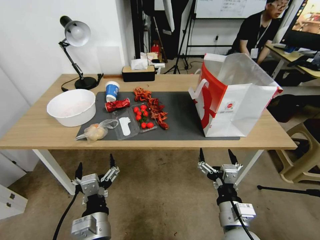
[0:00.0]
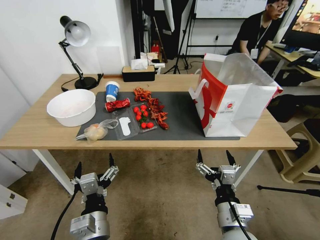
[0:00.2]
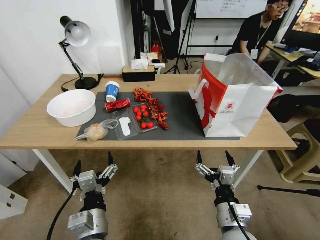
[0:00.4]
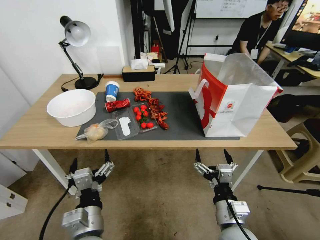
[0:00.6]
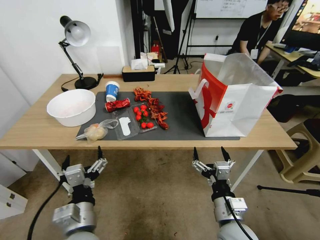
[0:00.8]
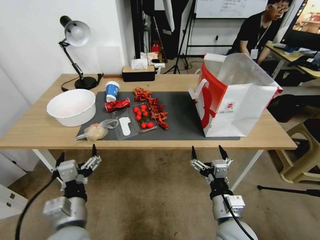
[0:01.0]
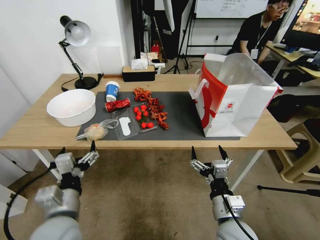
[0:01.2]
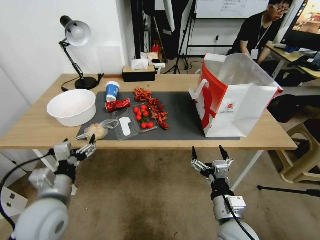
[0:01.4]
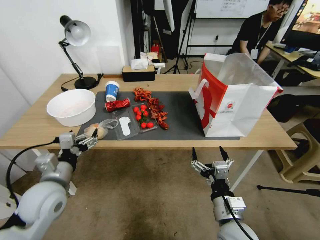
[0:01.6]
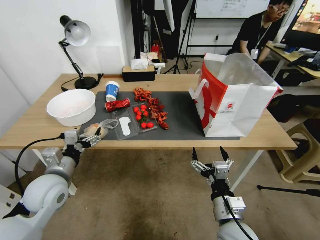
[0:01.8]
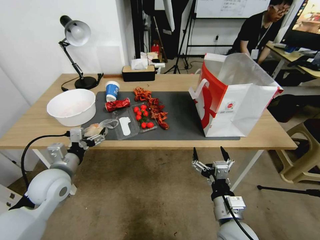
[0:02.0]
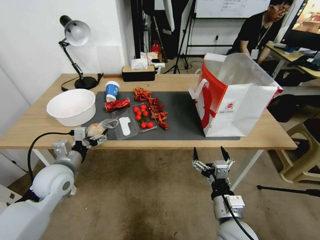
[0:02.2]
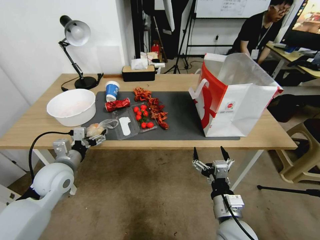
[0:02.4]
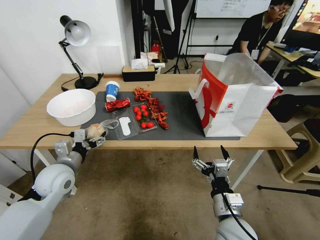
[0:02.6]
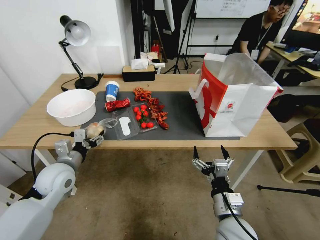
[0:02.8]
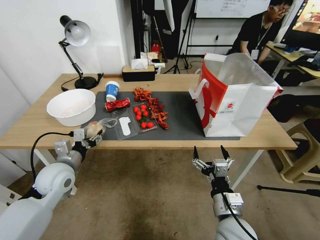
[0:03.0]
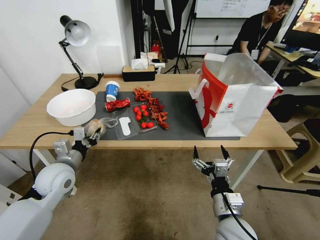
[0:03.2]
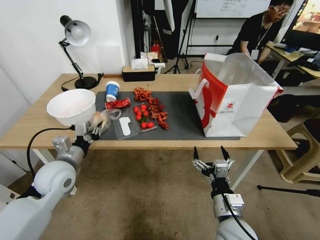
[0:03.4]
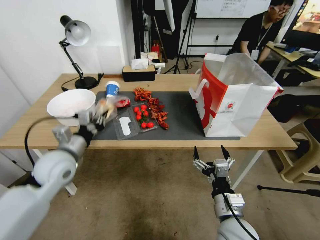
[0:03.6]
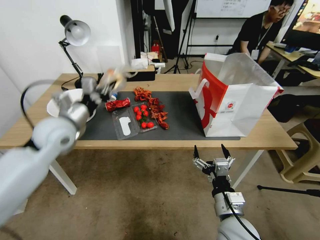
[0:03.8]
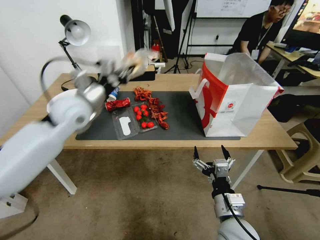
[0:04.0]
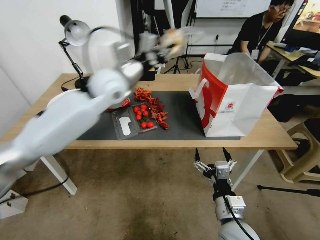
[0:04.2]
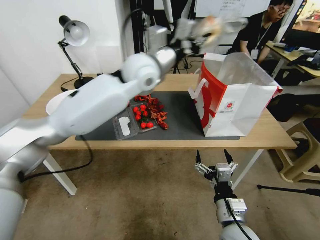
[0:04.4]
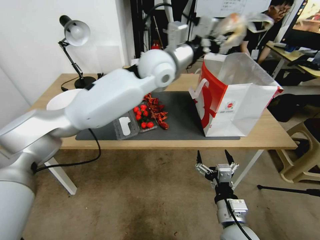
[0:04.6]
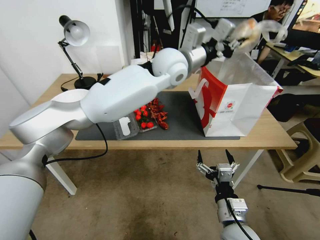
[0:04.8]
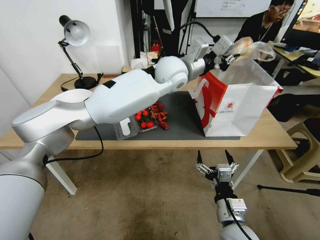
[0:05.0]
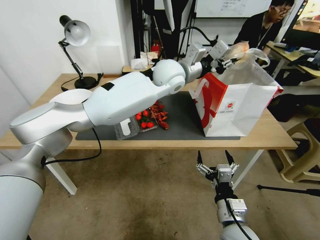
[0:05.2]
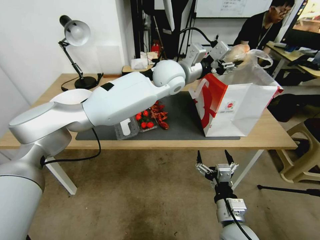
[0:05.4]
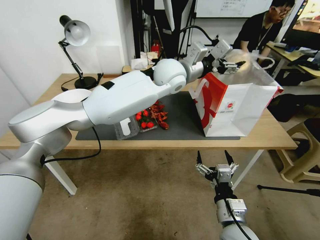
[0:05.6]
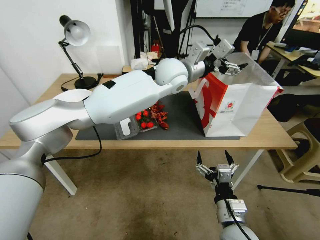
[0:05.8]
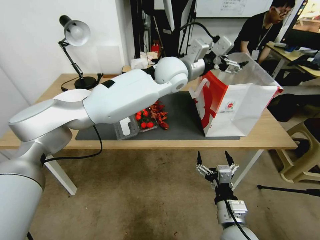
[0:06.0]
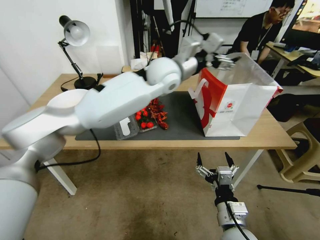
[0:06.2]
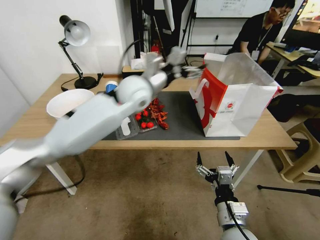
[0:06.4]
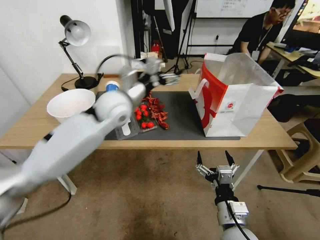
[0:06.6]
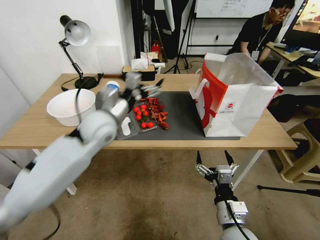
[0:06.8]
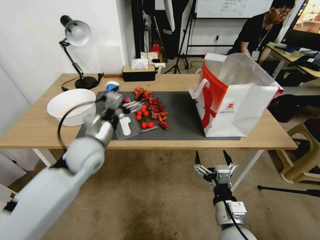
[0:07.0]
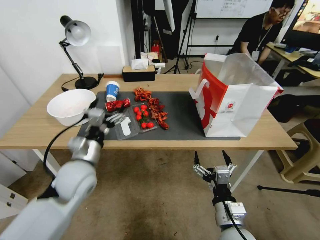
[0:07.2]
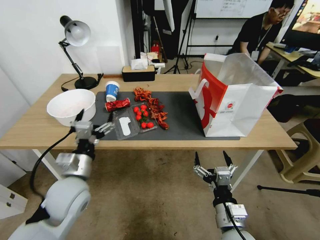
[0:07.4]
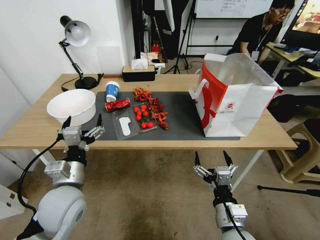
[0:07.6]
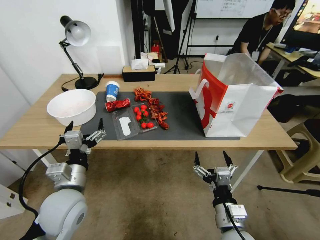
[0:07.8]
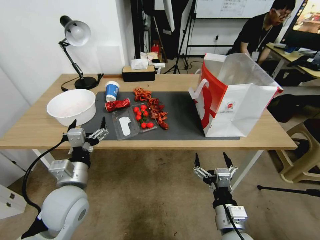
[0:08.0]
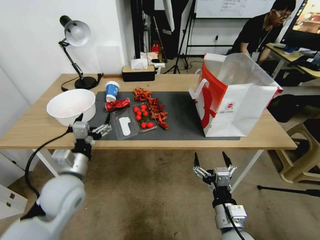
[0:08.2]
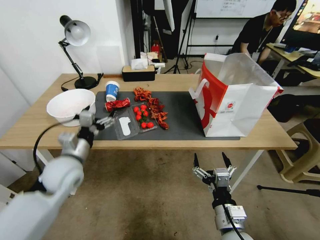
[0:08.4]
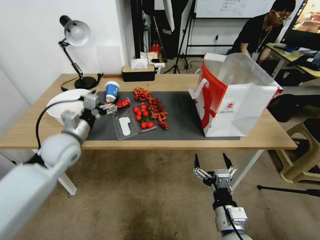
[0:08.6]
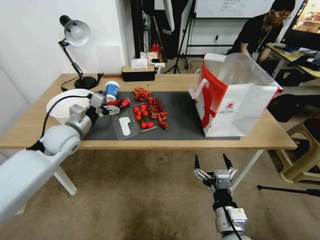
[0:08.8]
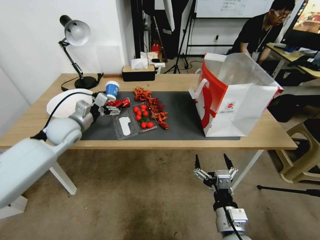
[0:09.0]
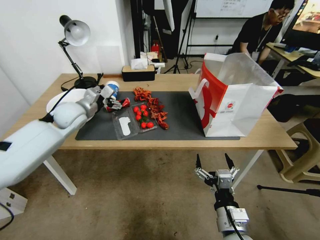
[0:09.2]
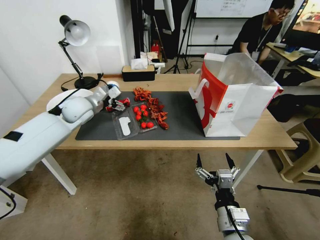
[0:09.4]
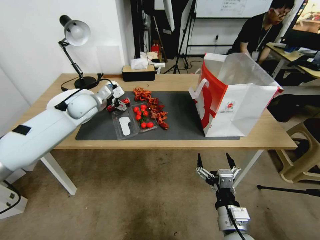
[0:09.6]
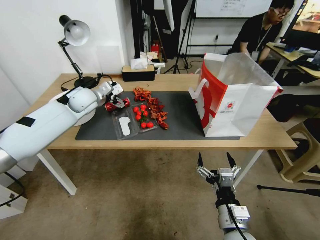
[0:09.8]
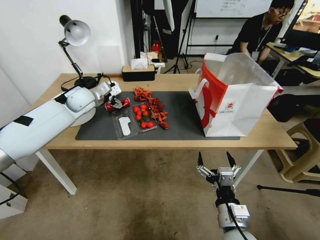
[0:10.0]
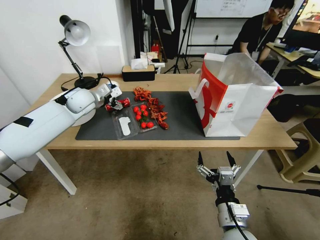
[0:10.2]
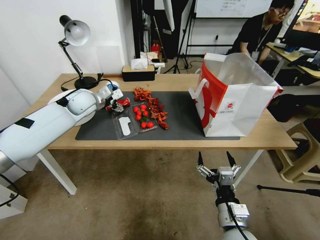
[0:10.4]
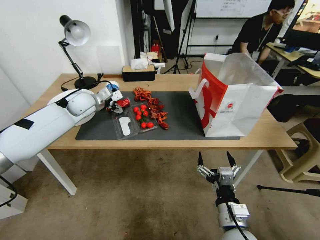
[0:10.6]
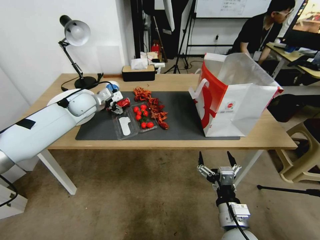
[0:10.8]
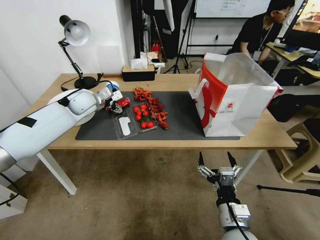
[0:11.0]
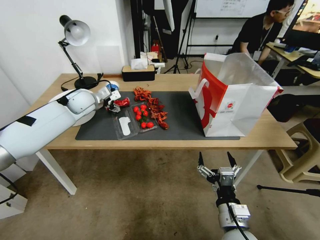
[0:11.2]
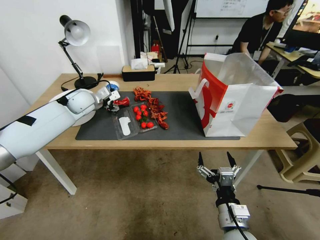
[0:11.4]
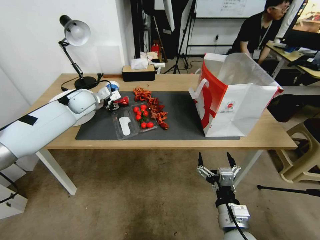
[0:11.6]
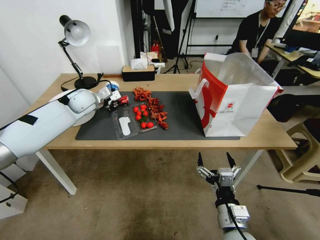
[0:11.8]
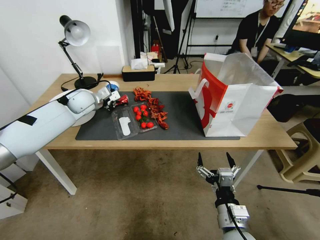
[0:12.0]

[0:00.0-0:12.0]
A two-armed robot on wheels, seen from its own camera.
0:00.0 to 0:01.6: The left gripper goes roughly 20 cm to the left and forward.
0:01.6 to 0:03.0: The left gripper travels forward by roughly 5 cm, and closes its fingers.
0:03.0 to 0:04.4: The left gripper moves upward, to the right and forward, approximately 35 cm, and closes.
0:04.4 to 0:06.0: The left gripper shifts roughly 15 cm to the right, and opens.
0:06.0 to 0:07.6: The left gripper is displaced backward, to the left and downward by roughly 40 cm.
0:07.6 to 0:09.0: The left gripper goes some 20 cm forward.
0:09.0 to 0:10.4: The left gripper is displaced forward by some 10 cm.
0:10.4 to 0:12.0: The left gripper closes up.

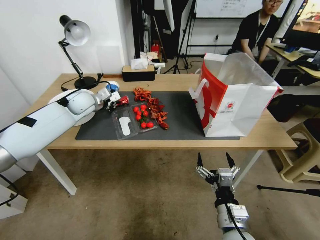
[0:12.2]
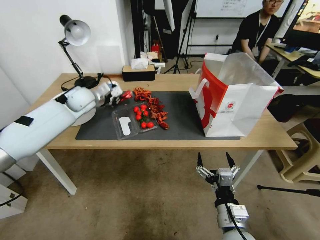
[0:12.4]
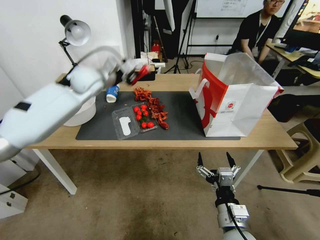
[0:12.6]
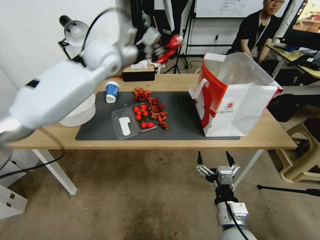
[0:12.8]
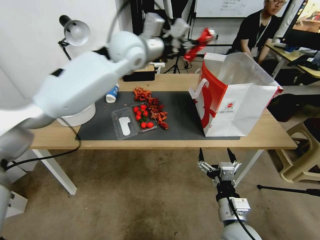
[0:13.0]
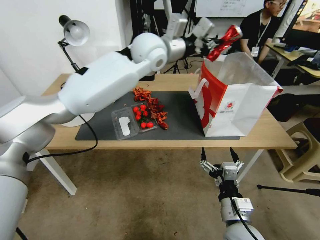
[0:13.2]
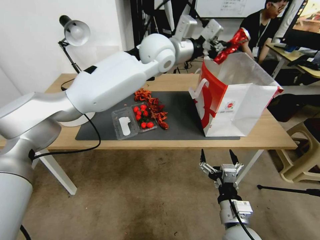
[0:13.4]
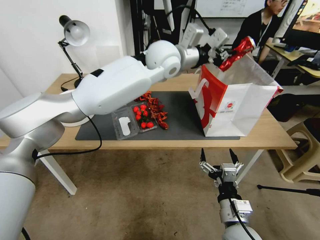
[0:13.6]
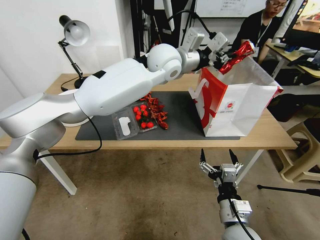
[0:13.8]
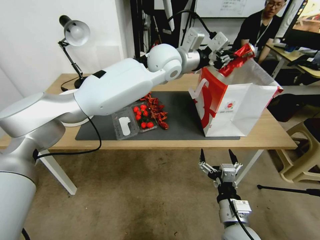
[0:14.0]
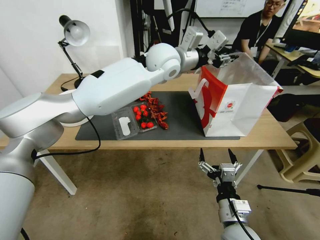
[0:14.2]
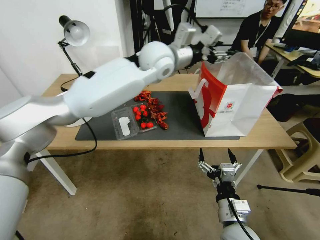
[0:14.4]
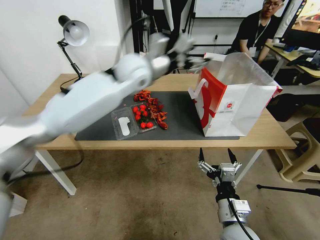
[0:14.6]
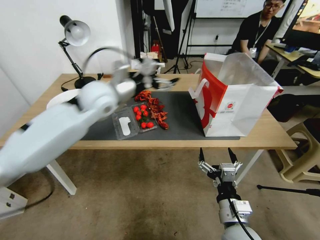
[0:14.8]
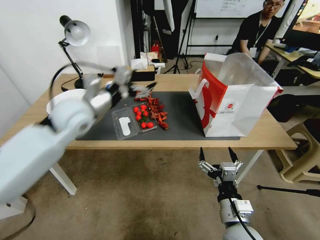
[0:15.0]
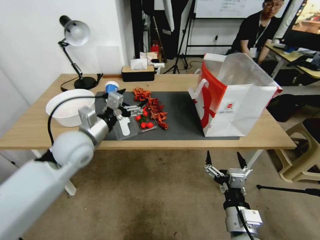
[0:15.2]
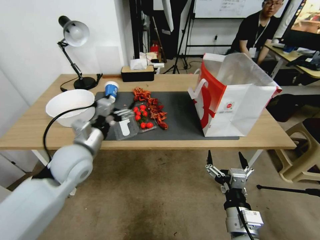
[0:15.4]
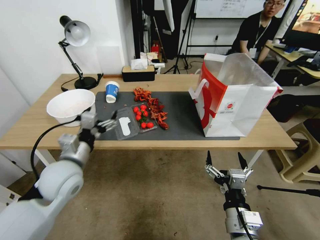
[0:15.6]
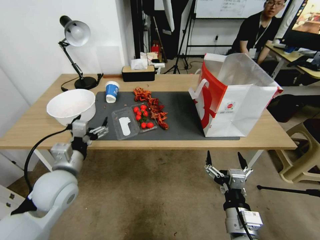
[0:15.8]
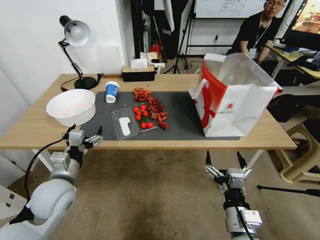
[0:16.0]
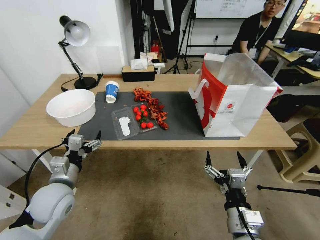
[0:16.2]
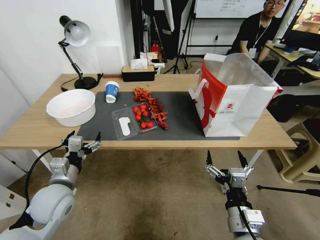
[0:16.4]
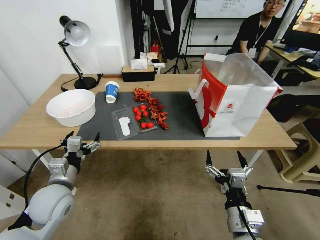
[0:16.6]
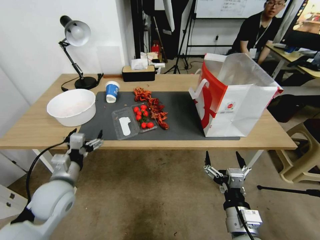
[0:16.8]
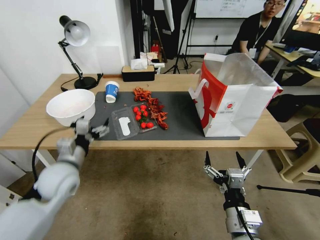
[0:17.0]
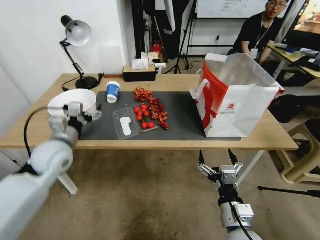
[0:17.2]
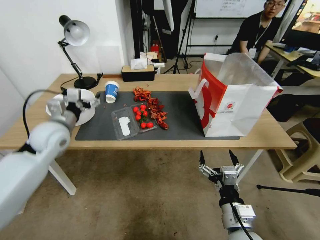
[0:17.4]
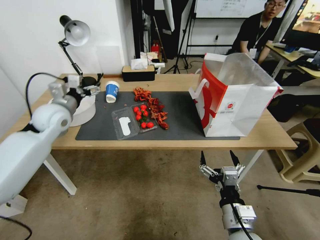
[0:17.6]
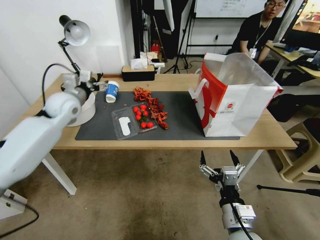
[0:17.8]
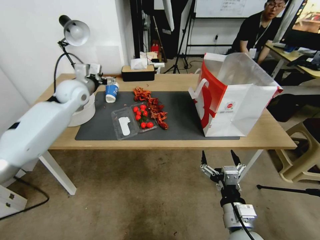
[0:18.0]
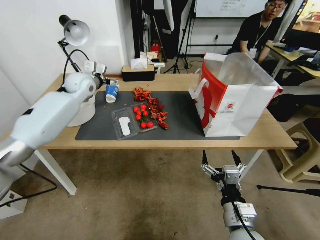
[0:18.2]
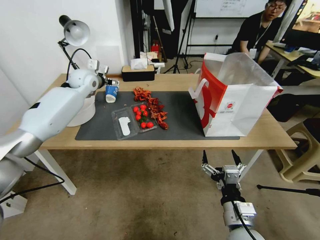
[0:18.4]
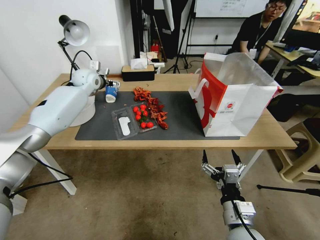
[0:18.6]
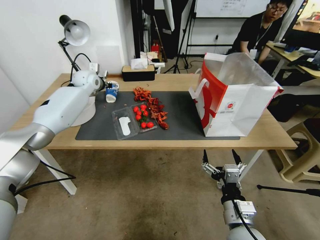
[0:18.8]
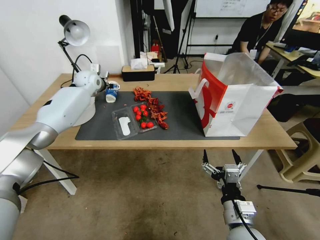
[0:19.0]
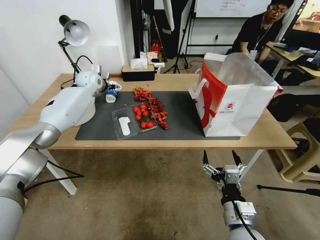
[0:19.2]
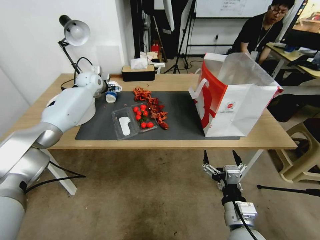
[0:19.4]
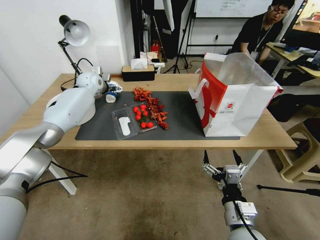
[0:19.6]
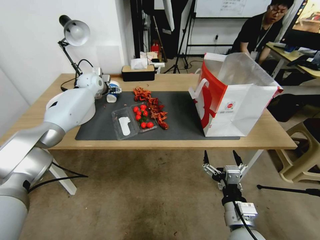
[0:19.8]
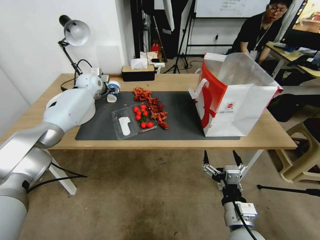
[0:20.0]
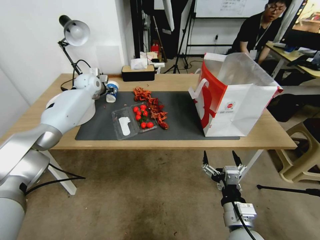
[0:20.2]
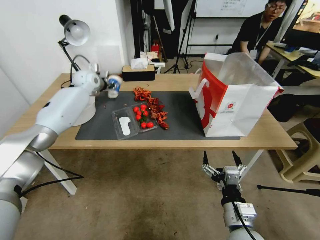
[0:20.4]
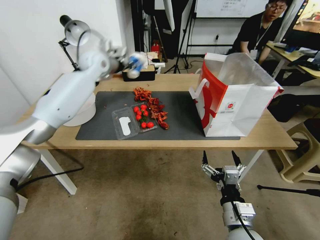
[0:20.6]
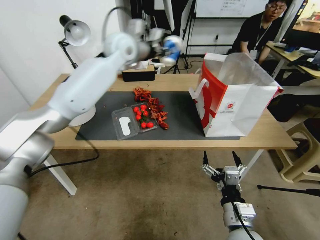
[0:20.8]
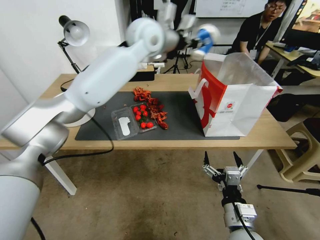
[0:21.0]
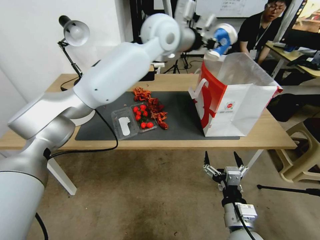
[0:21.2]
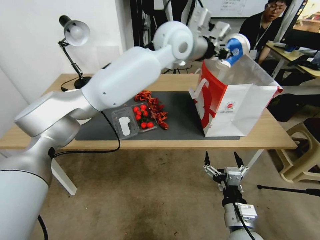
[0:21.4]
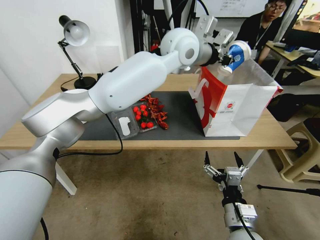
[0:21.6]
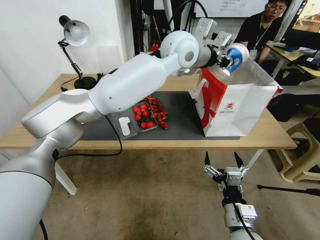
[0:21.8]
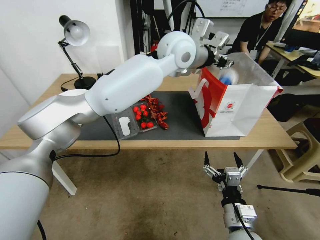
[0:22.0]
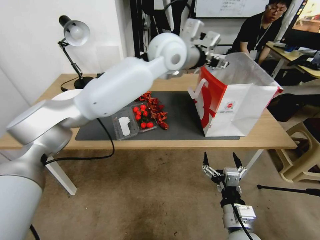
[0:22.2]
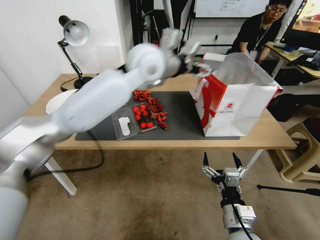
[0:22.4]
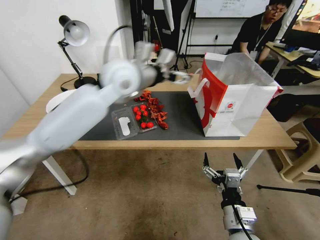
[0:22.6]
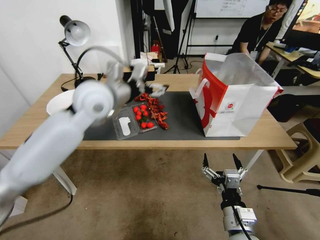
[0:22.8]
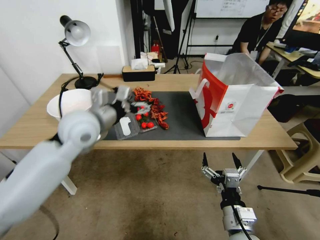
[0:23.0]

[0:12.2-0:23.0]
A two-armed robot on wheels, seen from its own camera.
0:12.2 to 0:13.8: The left gripper moves to the right and upward, approximately 35 cm.
0:13.8 to 0:15.2: The left gripper shifts about 25 cm to the left and backward, and opens up.
0:15.2 to 0:16.8: The left gripper heads downward, backward and to the left, covering some 30 cm.
0:16.8 to 0:18.4: The left gripper shifts some 35 cm forward and upward.
0:18.4 to 0:20.0: The left gripper travels forward by approximately 5 cm, and closes up.
0:20.0 to 0:21.4: The left gripper moves to the right, upward and backward, approximately 40 cm, and closes up.
0:21.4 to 0:23.0: The left gripper goes approximately 35 cm to the left, downward and backward, and opens up.
